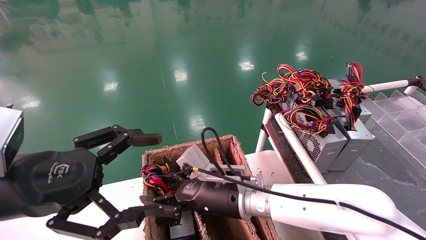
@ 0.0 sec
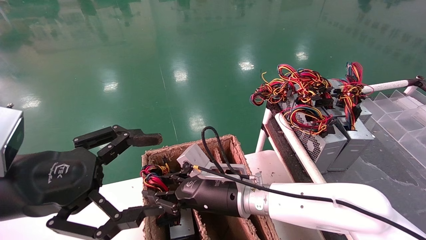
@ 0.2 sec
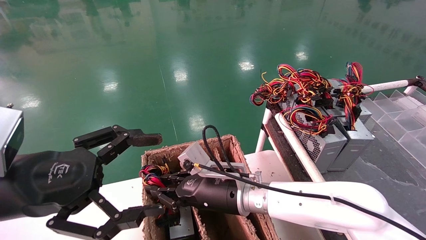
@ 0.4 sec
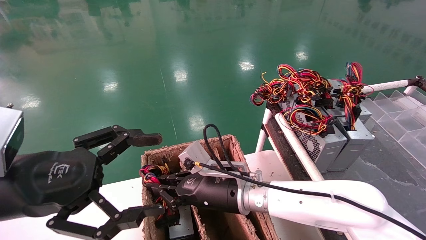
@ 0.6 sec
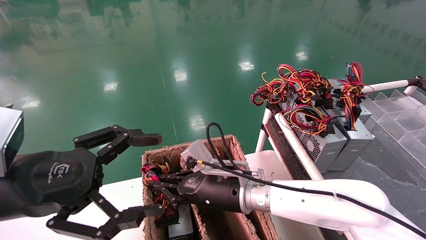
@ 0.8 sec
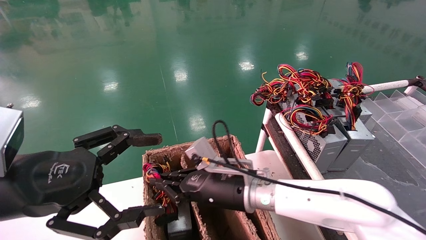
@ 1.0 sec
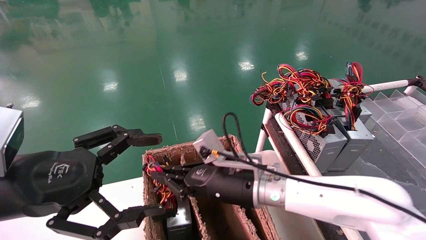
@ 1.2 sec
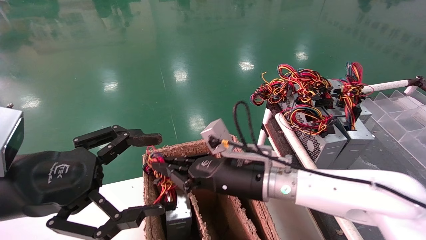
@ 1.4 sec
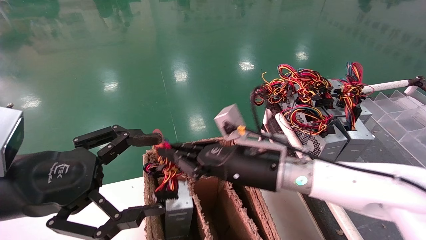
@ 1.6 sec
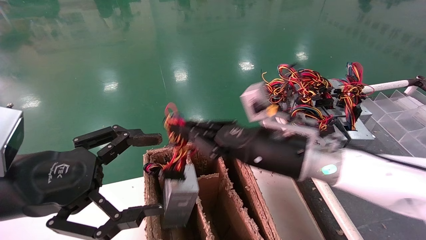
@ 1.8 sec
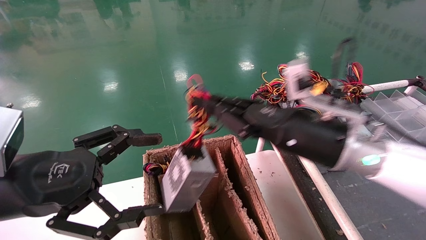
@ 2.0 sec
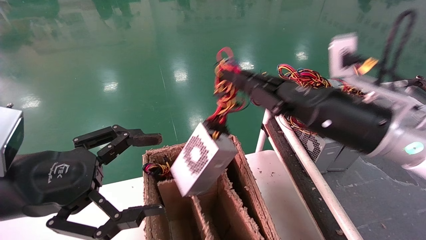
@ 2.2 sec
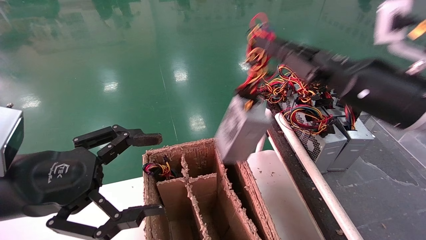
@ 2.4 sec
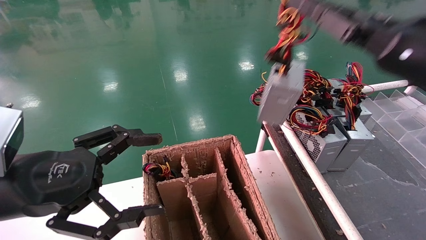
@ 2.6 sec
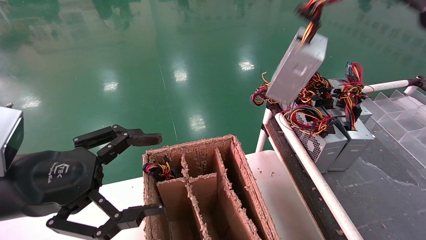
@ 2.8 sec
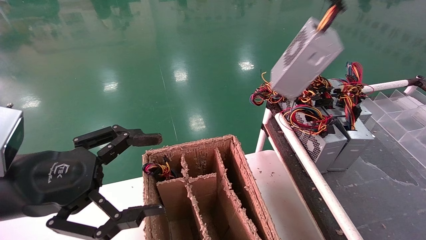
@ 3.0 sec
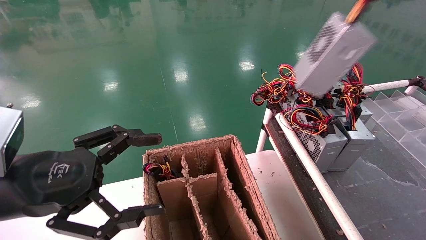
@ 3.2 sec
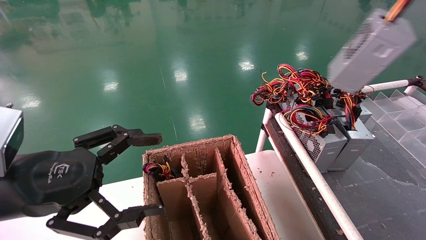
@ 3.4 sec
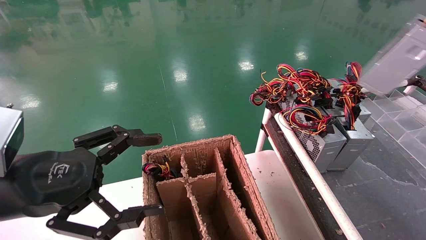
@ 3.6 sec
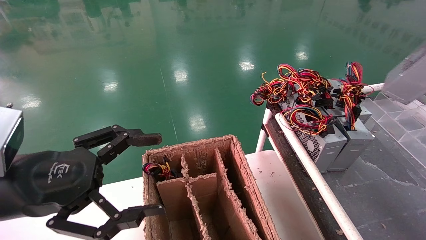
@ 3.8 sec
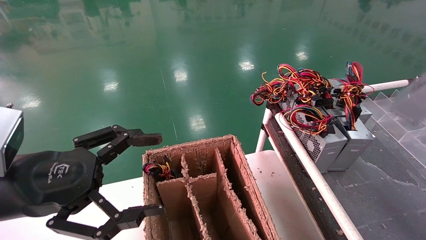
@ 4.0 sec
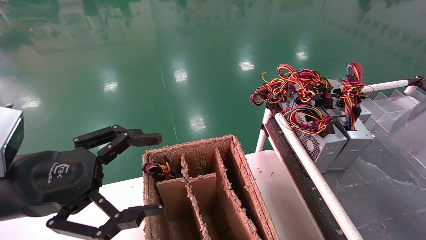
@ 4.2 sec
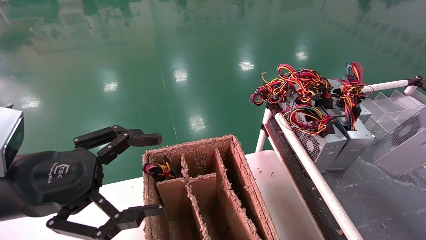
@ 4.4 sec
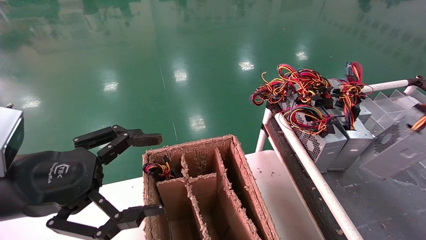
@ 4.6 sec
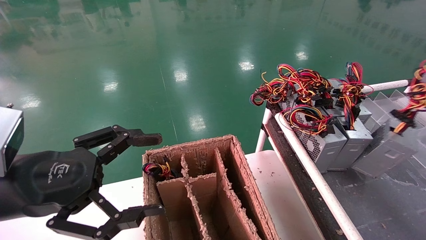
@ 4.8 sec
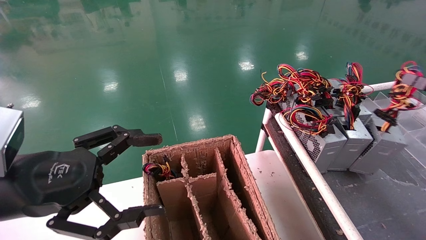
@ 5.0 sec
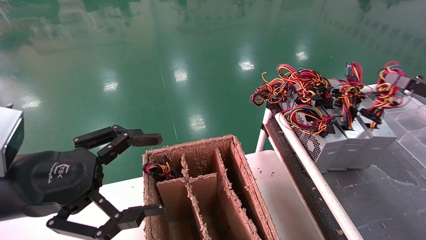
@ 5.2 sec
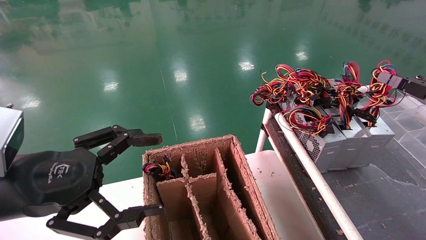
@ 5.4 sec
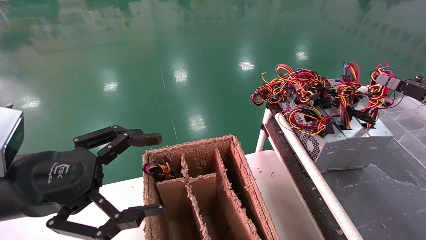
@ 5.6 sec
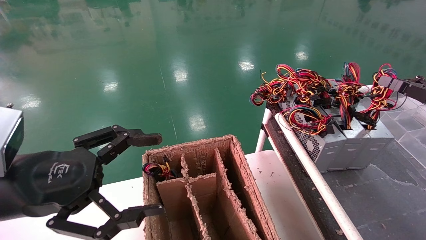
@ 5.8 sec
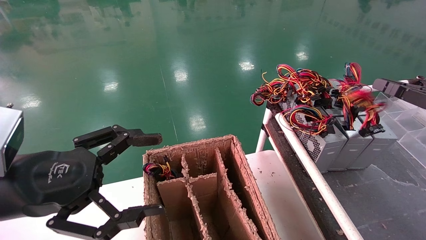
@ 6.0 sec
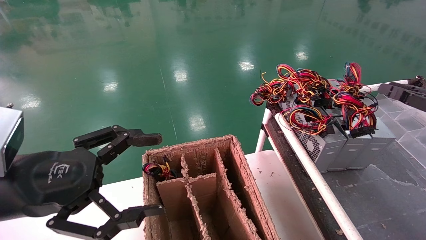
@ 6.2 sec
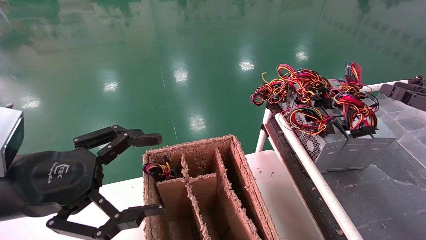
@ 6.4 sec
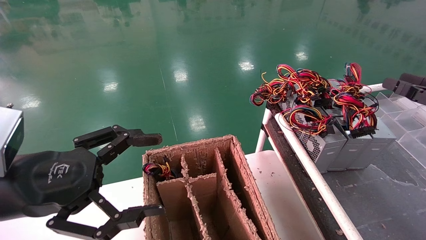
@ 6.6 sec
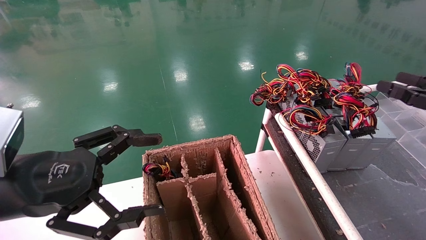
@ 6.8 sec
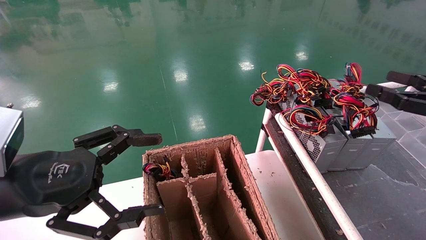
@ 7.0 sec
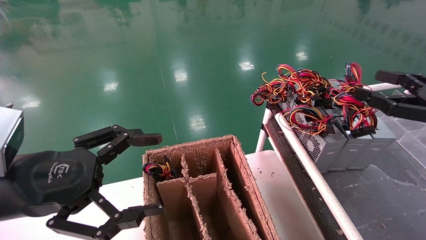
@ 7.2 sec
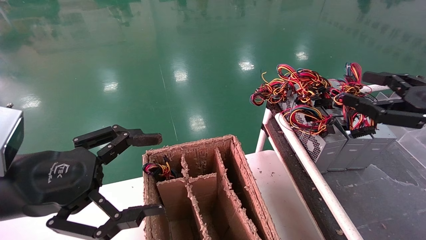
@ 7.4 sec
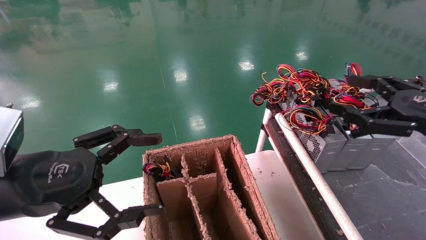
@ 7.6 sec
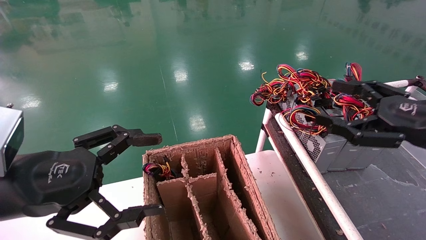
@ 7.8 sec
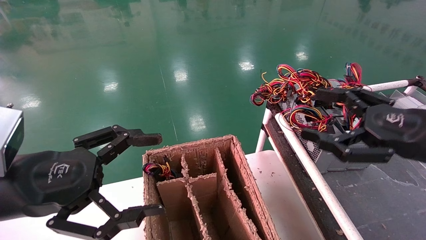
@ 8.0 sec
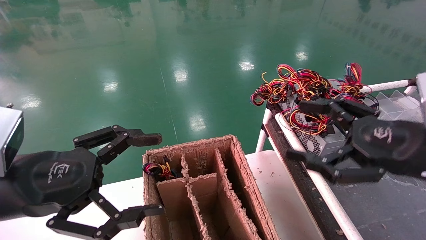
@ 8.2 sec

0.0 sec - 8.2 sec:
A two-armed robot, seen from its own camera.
Step, 1.2 sec - 5.8 sec: Place the power supply on the operating table.
0.0 sec - 1.6 sec: The right gripper moves upward and to the right, approximately 10 cm, and closes up.
1.6 sec - 3.2 sec: The right gripper moves to the right and upward, some 40 cm.
3.2 sec - 5.0 sec: The right gripper goes about 20 cm downward and to the right.
5.0 sec - 6.6 sec: The right gripper opens its fingers.
6.6 sec - 8.2 sec: The right gripper heads to the left, covering some 15 cm, and opens its fingers.
